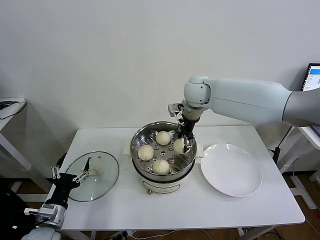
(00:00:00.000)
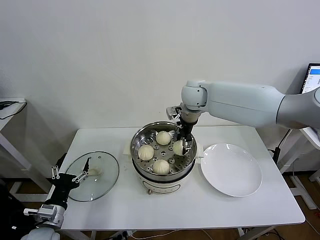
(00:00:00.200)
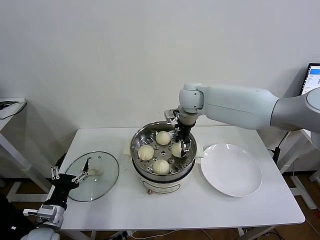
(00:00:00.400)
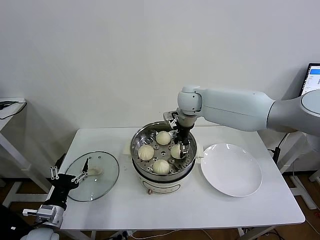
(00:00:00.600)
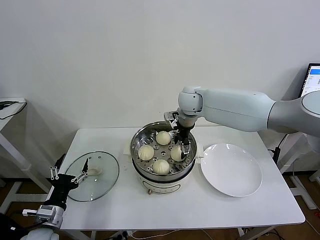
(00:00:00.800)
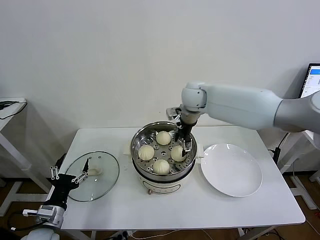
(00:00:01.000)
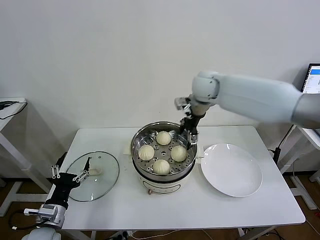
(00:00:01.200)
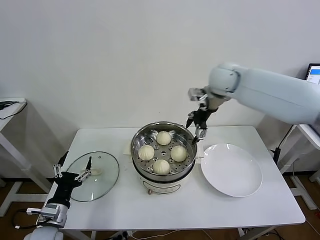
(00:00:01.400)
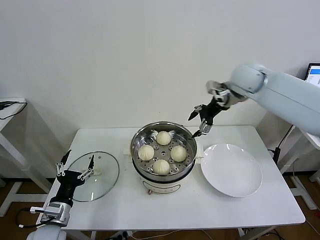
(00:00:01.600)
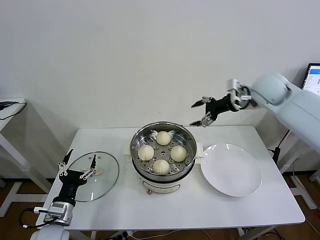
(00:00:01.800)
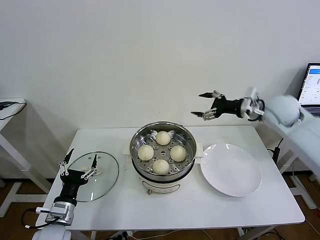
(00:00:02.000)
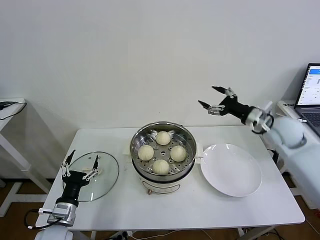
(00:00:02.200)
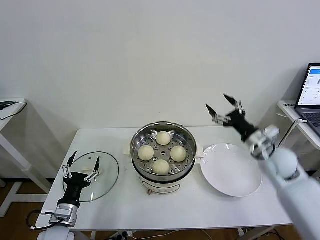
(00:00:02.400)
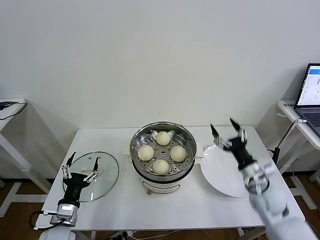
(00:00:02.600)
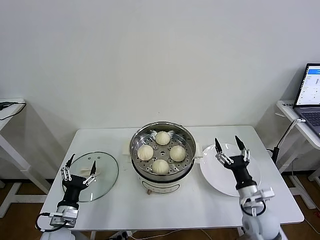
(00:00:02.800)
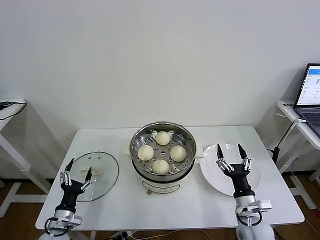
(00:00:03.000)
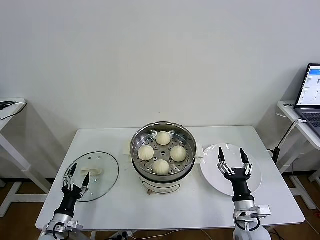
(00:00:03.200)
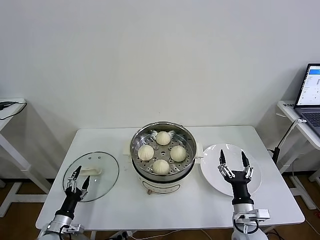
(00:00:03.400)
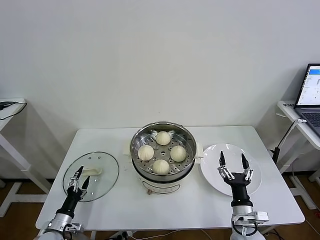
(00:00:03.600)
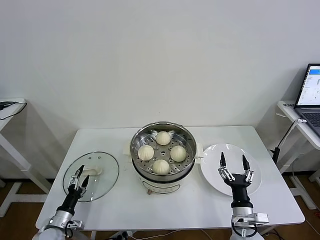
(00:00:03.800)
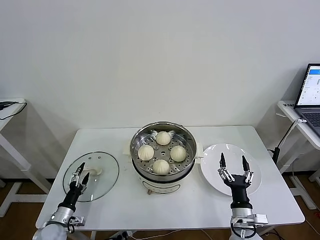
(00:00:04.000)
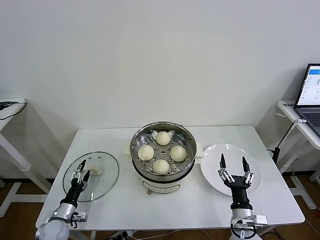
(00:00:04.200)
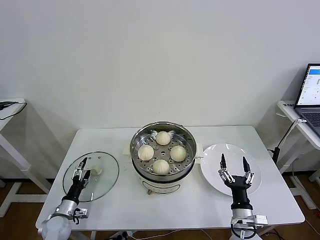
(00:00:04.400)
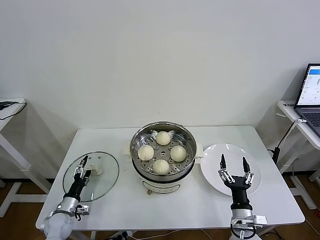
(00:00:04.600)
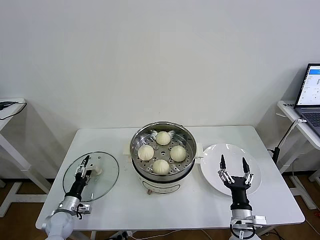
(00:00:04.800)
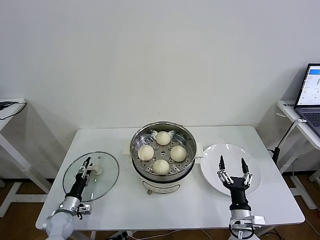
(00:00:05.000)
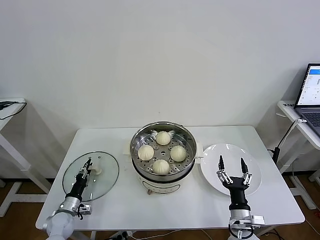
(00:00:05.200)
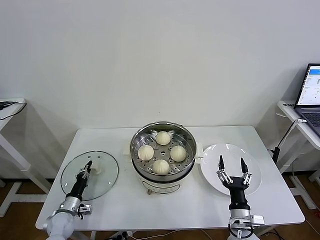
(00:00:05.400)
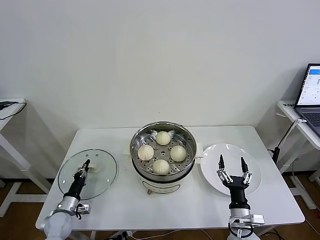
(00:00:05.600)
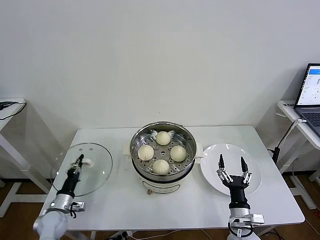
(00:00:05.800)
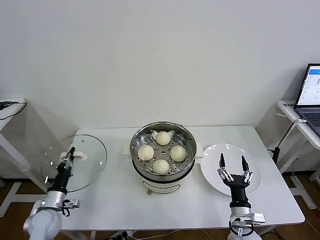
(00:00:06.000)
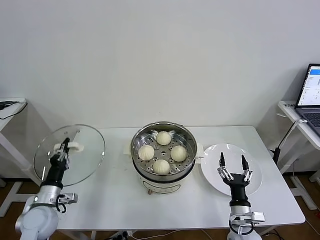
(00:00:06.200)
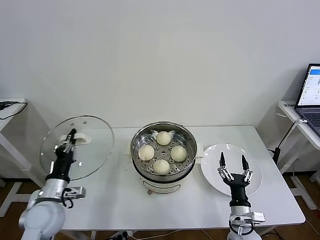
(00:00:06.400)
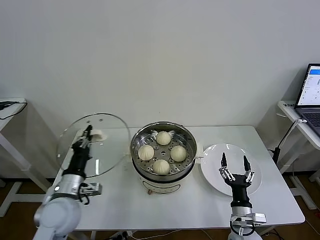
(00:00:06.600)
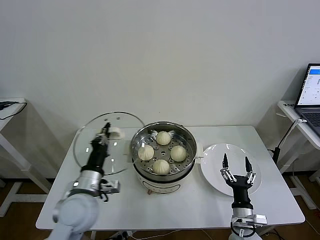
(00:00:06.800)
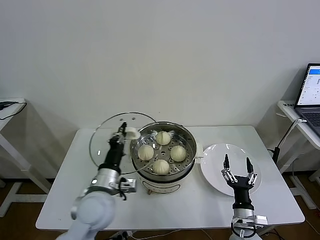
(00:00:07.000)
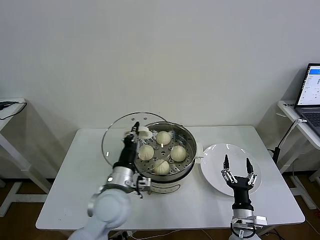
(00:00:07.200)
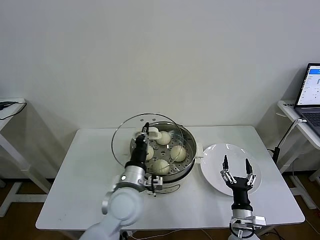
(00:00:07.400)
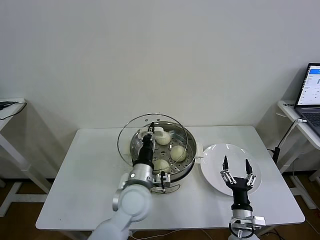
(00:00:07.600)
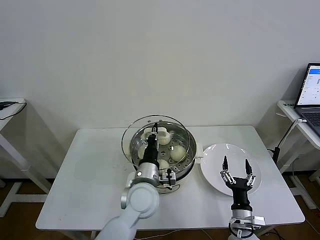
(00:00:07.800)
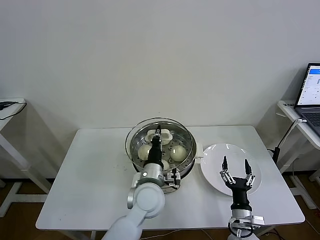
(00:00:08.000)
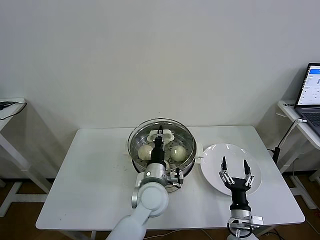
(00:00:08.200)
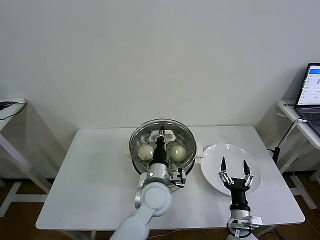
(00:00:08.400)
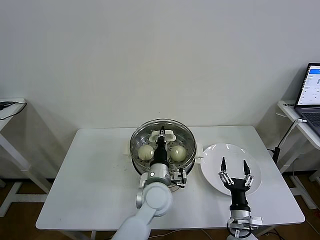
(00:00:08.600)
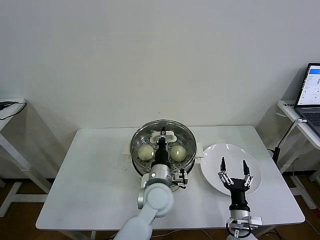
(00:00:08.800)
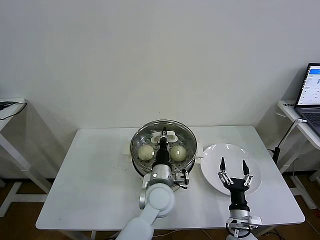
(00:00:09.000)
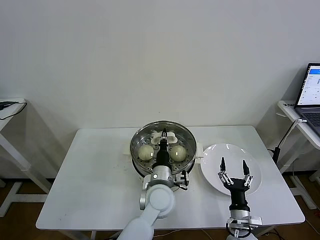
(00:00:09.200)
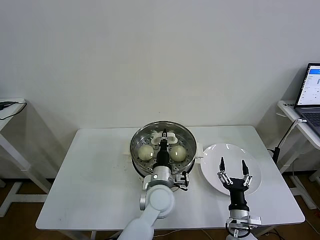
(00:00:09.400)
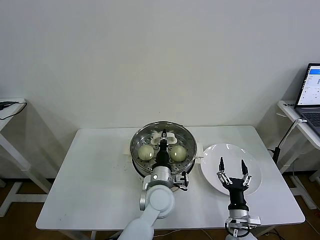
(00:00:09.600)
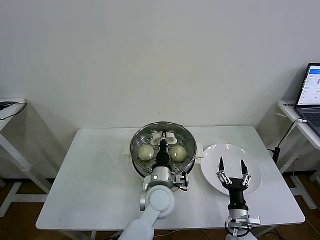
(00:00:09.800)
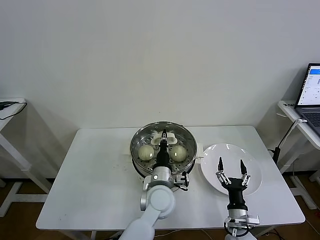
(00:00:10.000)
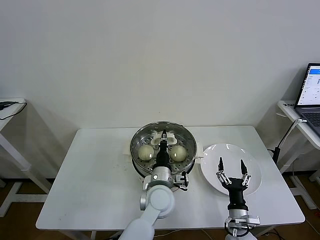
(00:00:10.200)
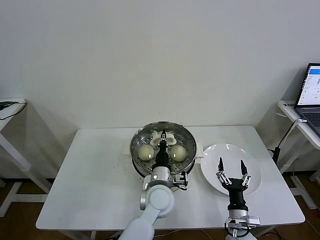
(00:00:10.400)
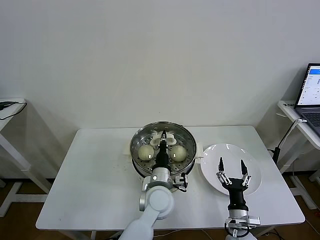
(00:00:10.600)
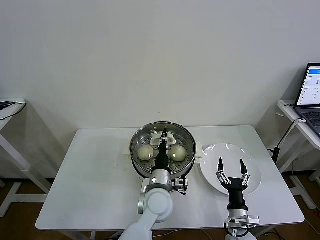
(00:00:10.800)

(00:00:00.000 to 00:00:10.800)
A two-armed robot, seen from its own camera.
Task of the whole recording: take steamed baozi put them in steamer then cover it.
Step, 00:00:01.000 - 00:00:05.400: Grasp the pot lid with left gripper.
00:00:00.000 - 00:00:01.600: The right gripper moves to the right, approximately 15 cm, and opens.
00:00:01.600 - 00:00:03.000: The left gripper moves downward, roughly 10 cm; the right gripper goes some 50 cm downward and backward.
00:00:03.000 - 00:00:04.600: The right gripper shifts by about 5 cm. Meanwhile the left gripper moves downward and forward, roughly 10 cm.
00:00:04.600 - 00:00:06.200: The left gripper shifts approximately 15 cm upward, and closes its fingers.
00:00:06.200 - 00:00:07.800: The left gripper shifts some 30 cm to the right.
00:00:07.800 - 00:00:09.200: The left gripper heads to the right, covering about 5 cm.
00:00:09.200 - 00:00:10.800: The two grippers keep their place.

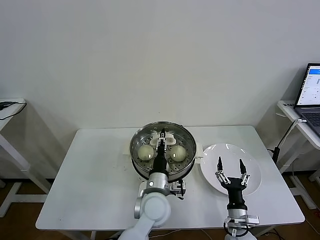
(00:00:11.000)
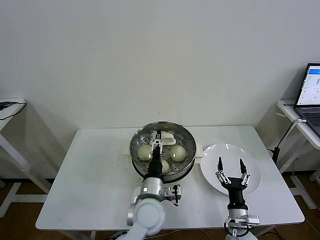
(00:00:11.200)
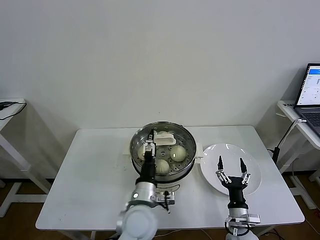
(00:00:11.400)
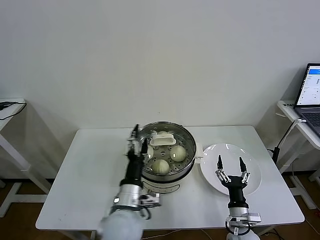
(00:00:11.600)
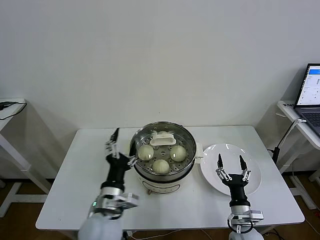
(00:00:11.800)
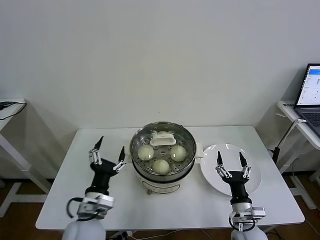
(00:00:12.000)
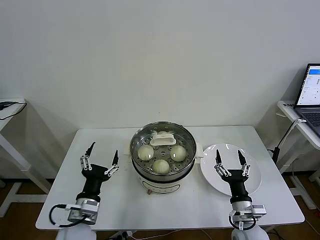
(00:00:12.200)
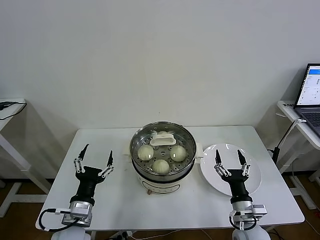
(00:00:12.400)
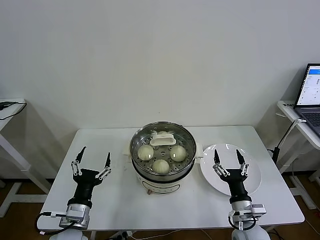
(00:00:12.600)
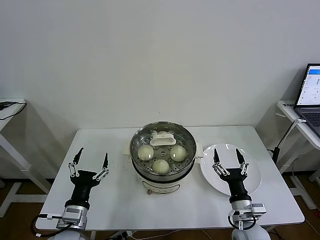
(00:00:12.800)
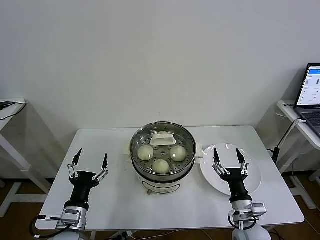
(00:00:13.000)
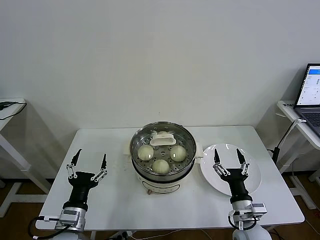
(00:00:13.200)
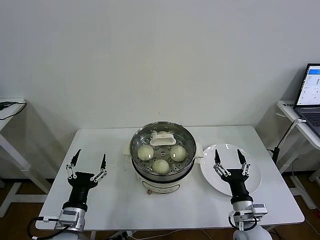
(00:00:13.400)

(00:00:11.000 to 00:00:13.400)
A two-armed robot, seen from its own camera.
Task of the whole recording: take steamed baozi put them in steamer then cover it.
00:00:11.000 - 00:00:12.200: The left gripper heads to the left and backward, covering about 20 cm, and opens; the right gripper goes approximately 5 cm upward.
00:00:12.200 - 00:00:13.400: There are only small adjustments of the grippers.
